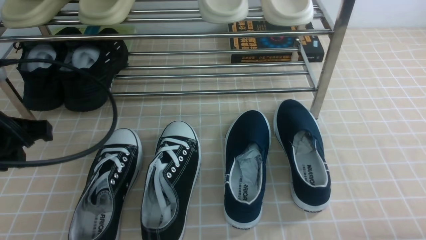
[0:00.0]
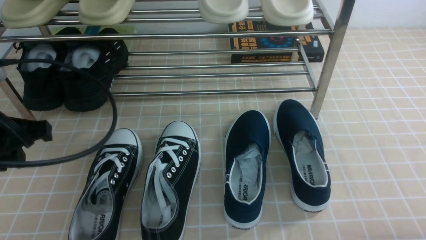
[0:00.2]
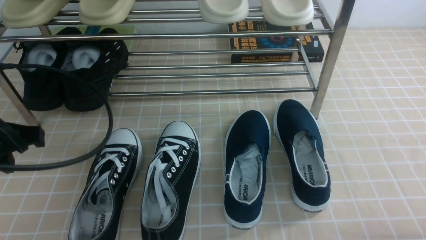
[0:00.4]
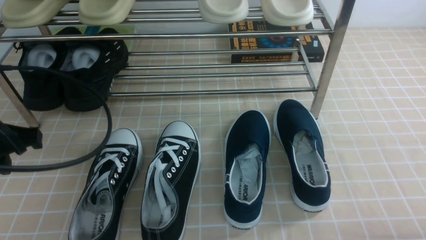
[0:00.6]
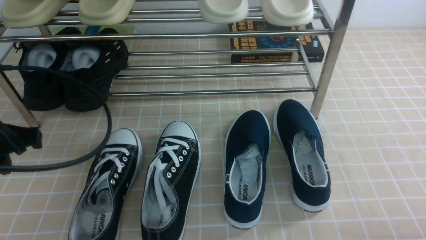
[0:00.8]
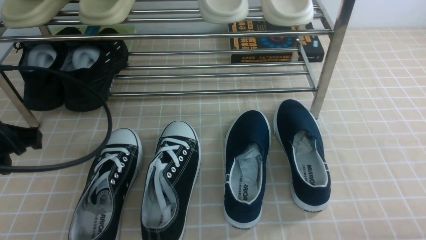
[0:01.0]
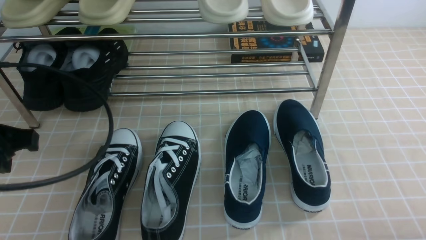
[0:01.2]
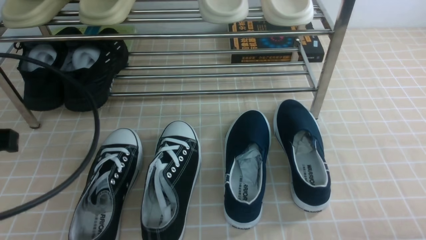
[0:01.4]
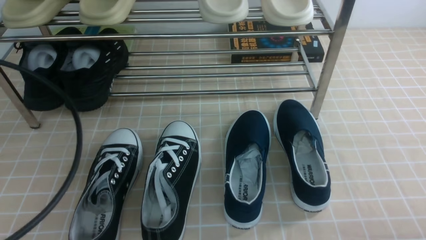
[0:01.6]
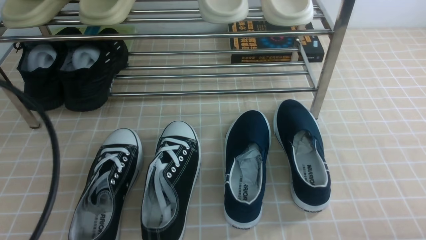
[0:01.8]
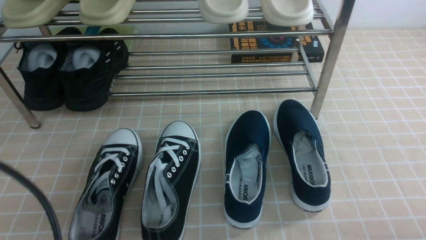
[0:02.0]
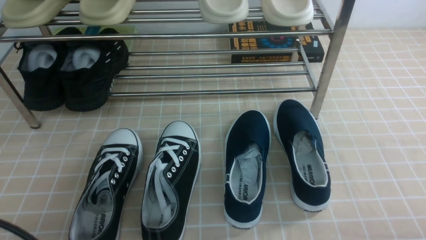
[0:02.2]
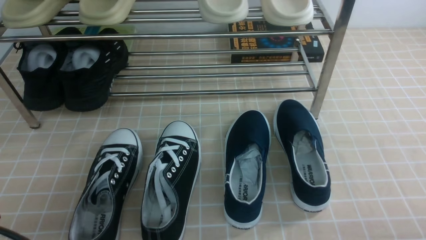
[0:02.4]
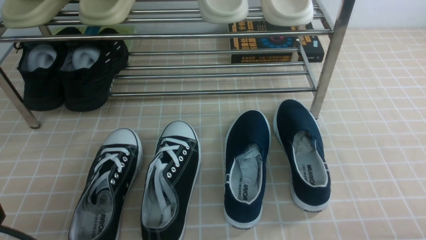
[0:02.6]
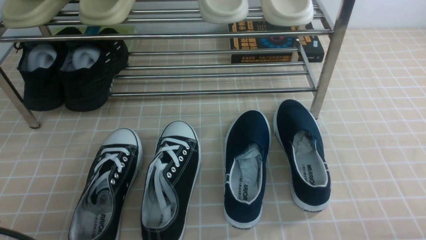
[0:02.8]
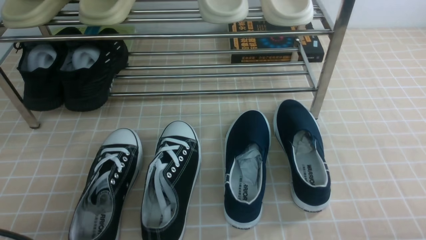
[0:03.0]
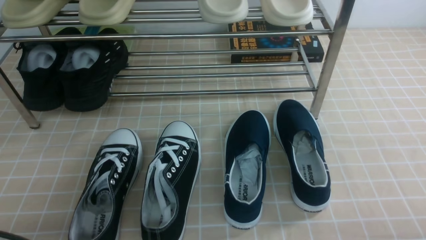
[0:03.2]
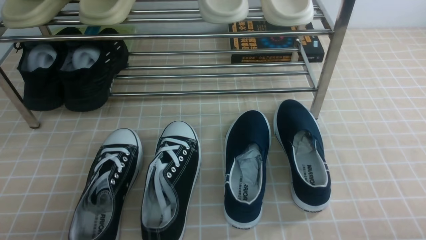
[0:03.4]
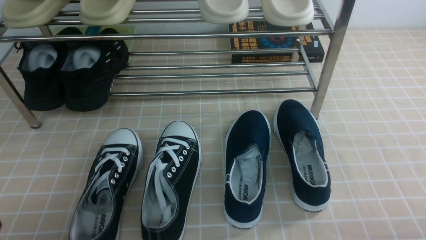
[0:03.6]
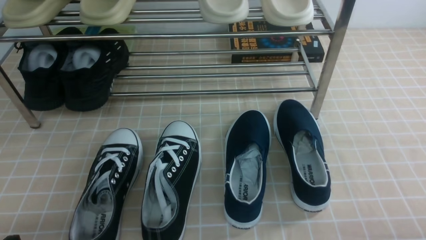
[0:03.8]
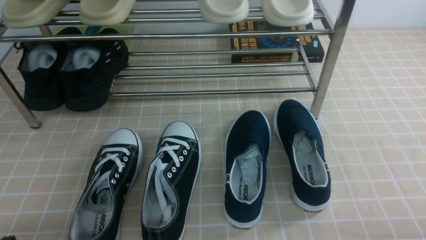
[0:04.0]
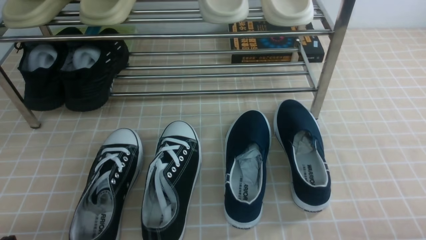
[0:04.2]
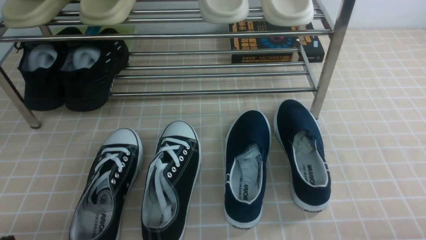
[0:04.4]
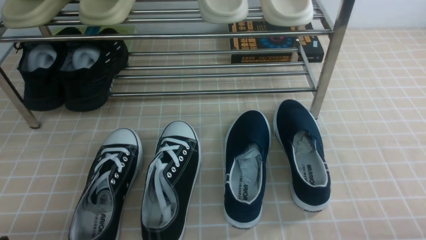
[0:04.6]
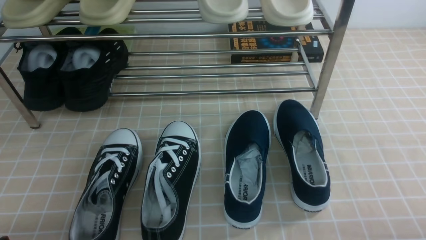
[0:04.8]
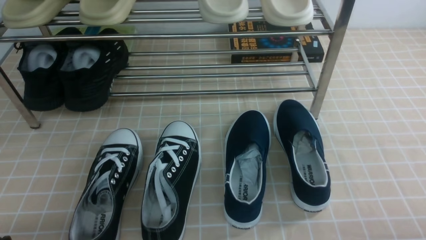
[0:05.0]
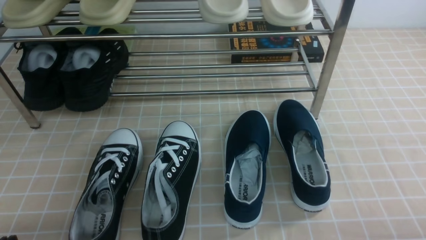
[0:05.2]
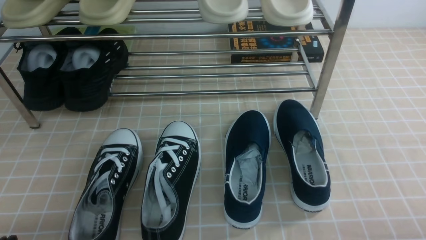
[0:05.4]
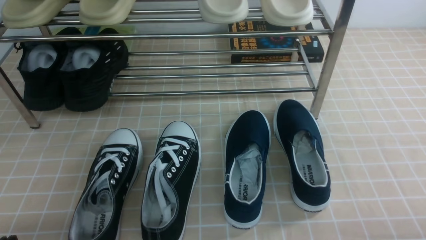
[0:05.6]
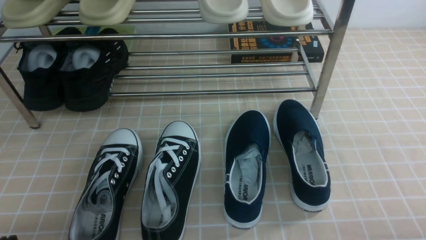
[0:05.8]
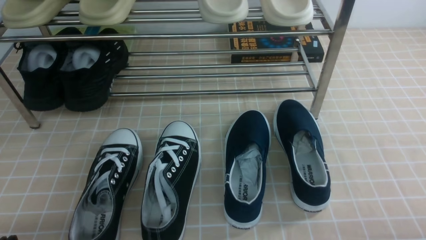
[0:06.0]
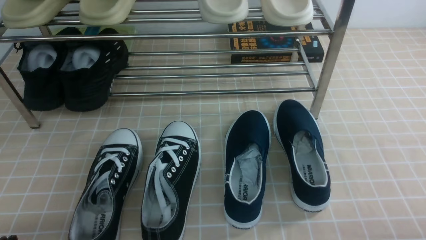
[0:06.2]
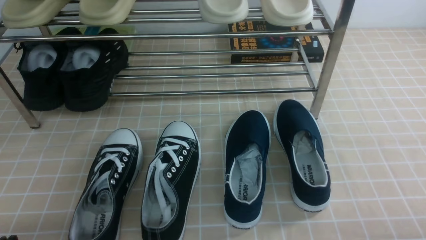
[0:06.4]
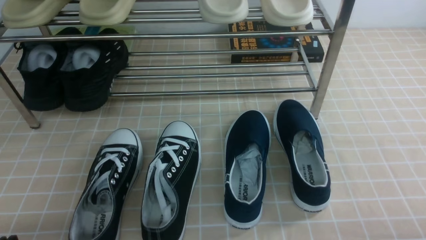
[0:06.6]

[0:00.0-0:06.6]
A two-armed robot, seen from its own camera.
0:00.0 to 0:01.6: The left gripper heads backward, covering some 10 cm.
0:01.6 to 0:03.2: The left gripper is displaced downward and backward by approximately 15 cm, and closes up.
0:05.0 to 0:06.6: Both grippers stay about where they are.

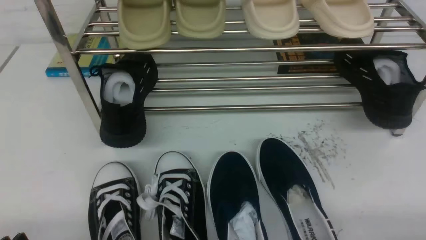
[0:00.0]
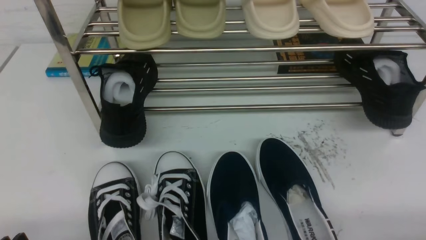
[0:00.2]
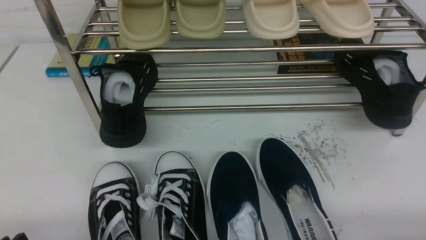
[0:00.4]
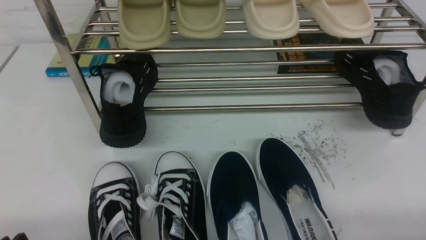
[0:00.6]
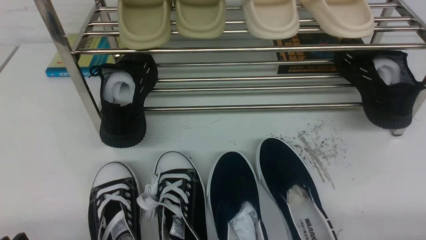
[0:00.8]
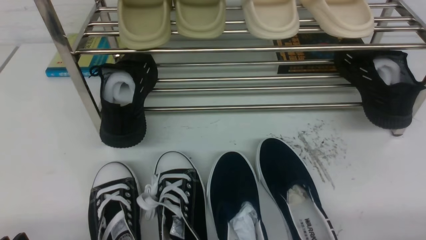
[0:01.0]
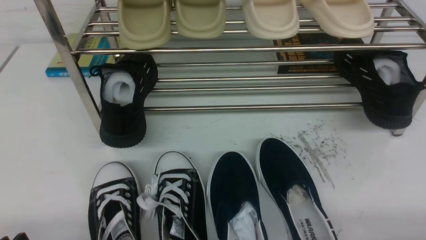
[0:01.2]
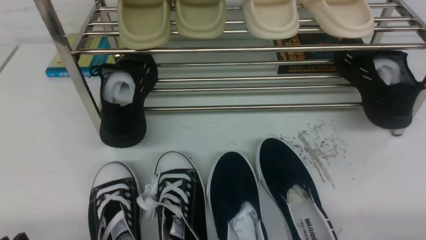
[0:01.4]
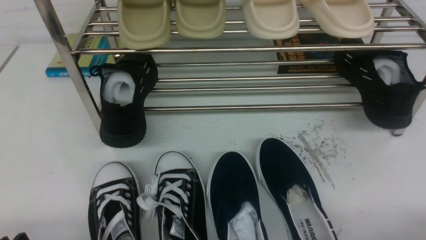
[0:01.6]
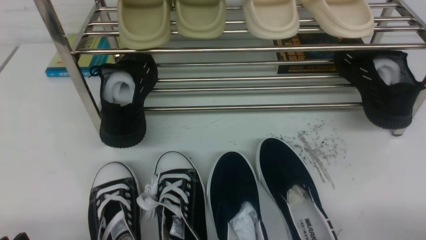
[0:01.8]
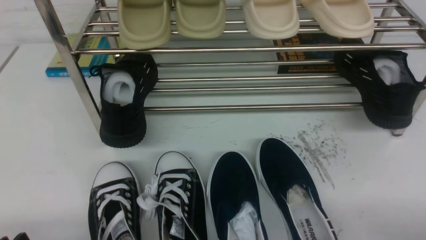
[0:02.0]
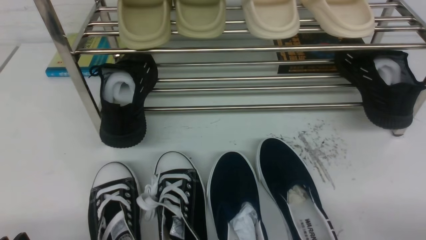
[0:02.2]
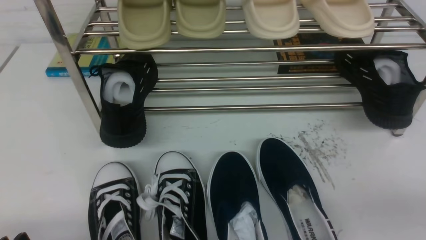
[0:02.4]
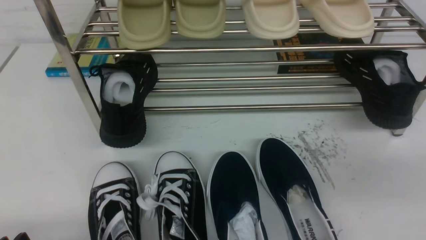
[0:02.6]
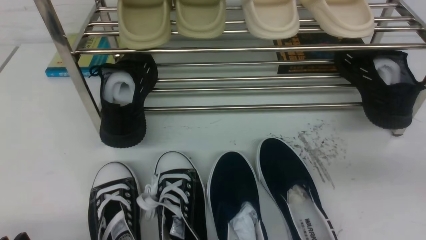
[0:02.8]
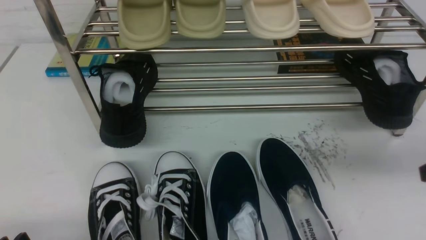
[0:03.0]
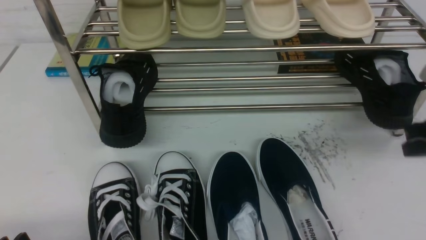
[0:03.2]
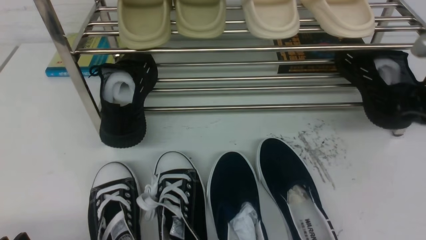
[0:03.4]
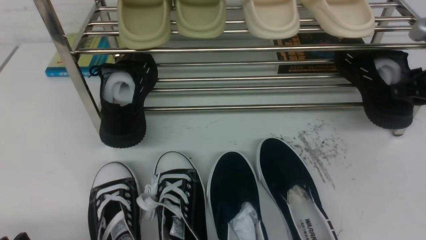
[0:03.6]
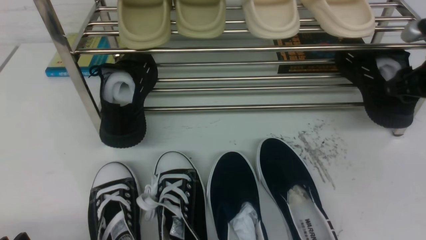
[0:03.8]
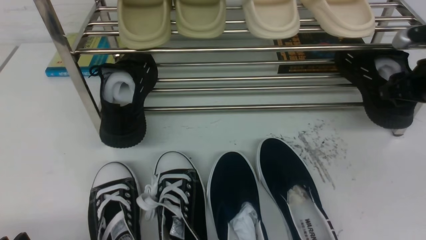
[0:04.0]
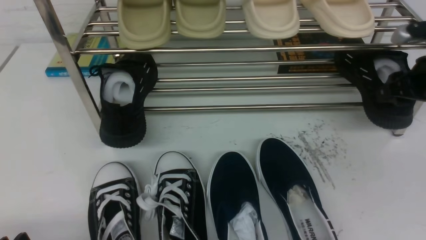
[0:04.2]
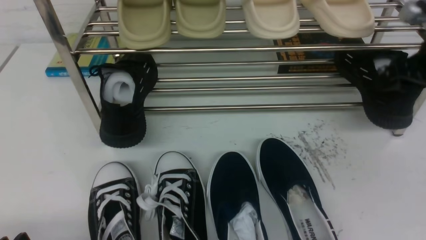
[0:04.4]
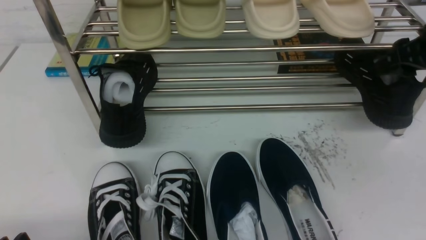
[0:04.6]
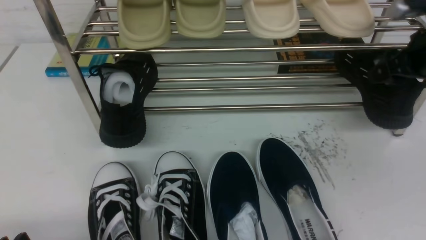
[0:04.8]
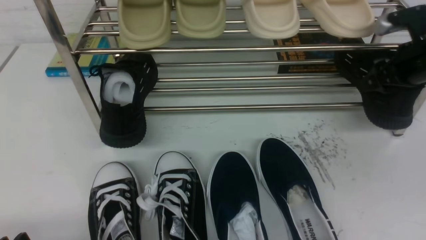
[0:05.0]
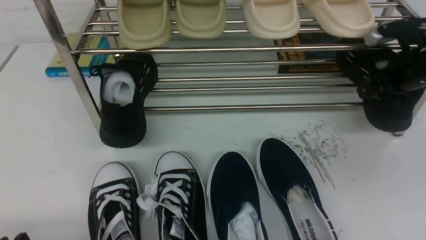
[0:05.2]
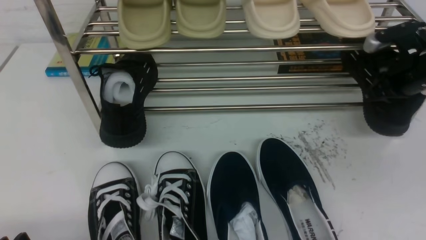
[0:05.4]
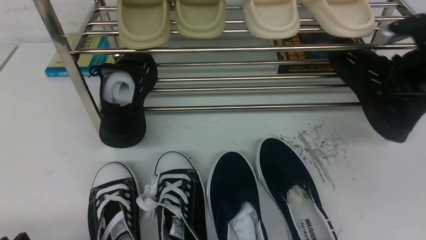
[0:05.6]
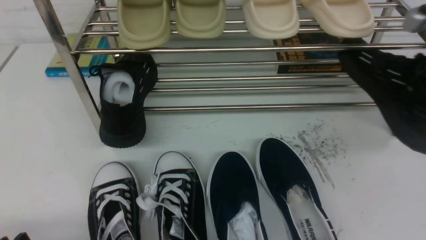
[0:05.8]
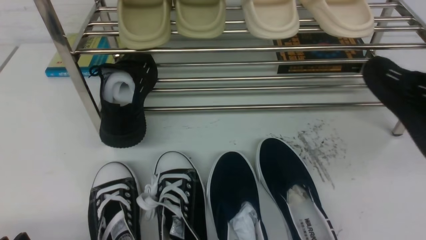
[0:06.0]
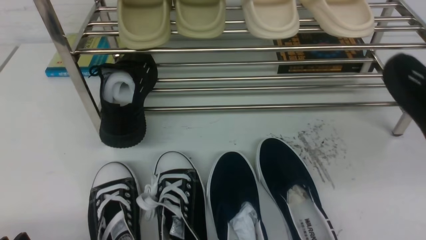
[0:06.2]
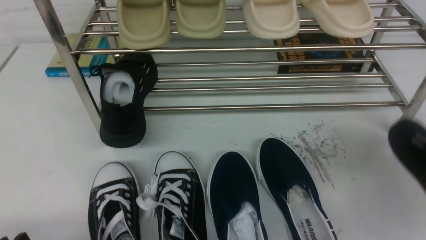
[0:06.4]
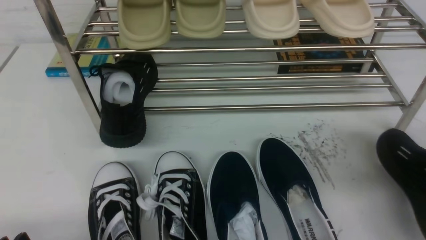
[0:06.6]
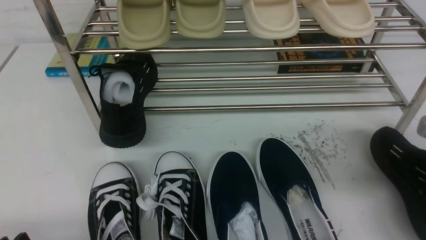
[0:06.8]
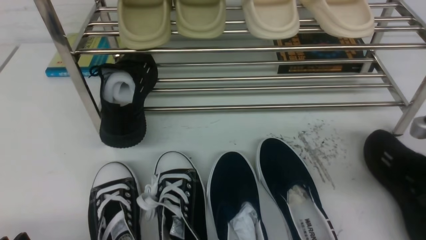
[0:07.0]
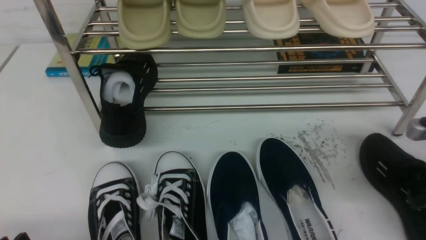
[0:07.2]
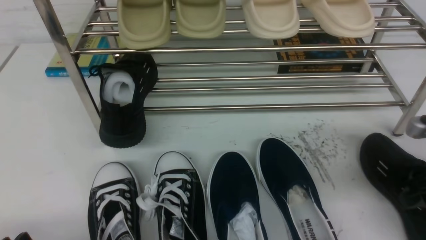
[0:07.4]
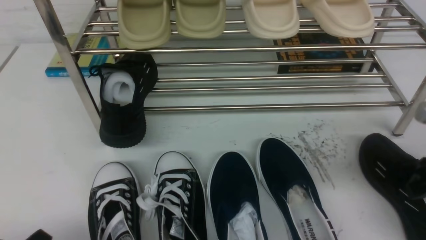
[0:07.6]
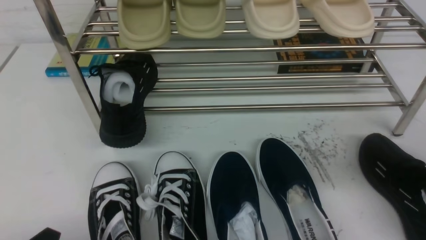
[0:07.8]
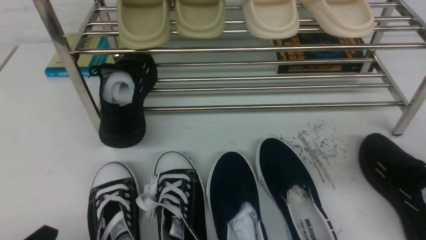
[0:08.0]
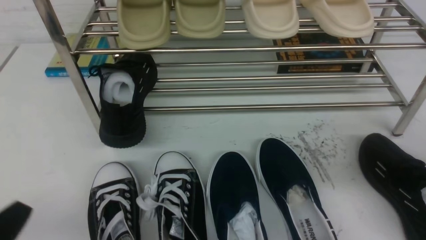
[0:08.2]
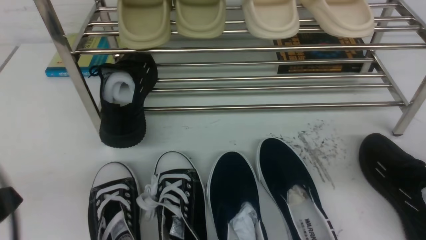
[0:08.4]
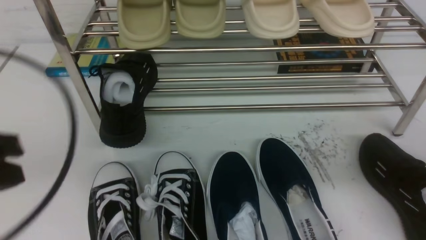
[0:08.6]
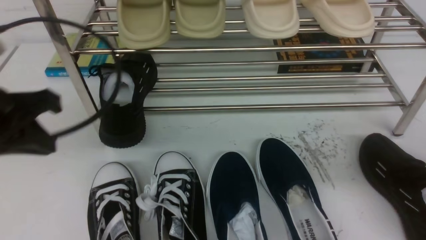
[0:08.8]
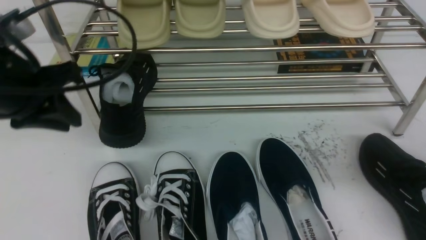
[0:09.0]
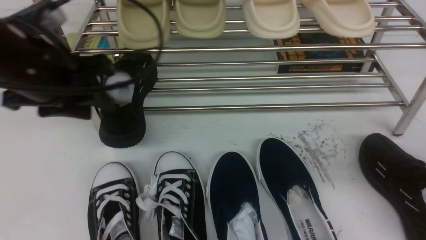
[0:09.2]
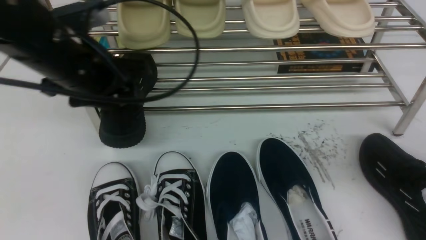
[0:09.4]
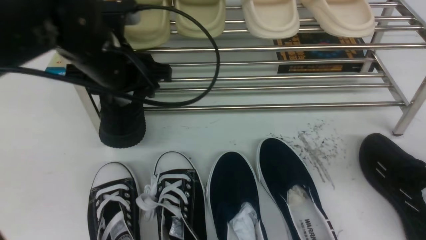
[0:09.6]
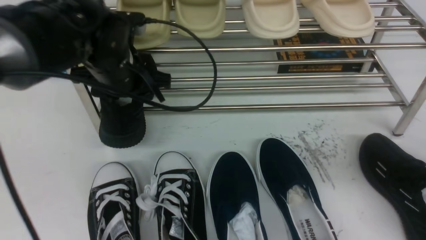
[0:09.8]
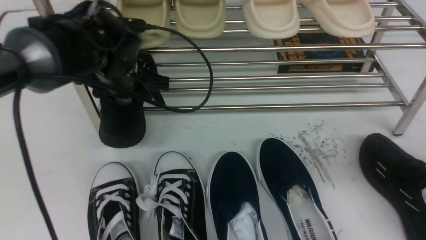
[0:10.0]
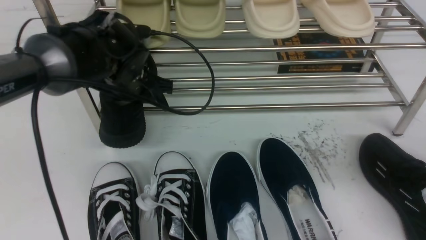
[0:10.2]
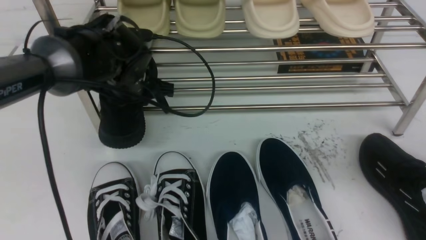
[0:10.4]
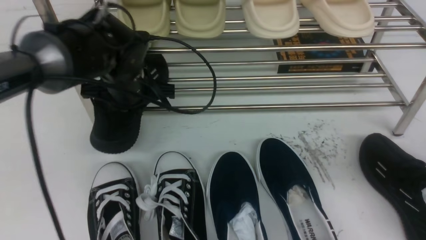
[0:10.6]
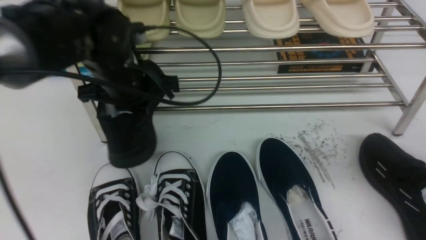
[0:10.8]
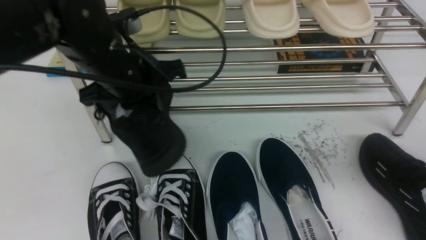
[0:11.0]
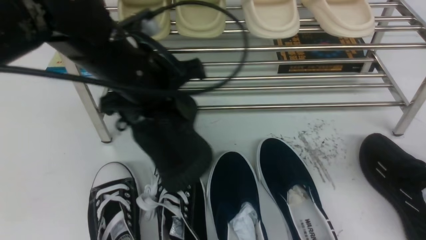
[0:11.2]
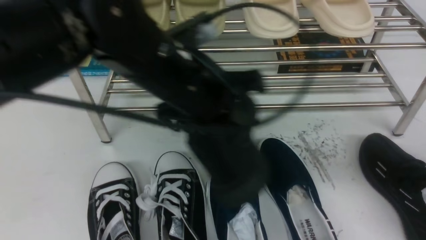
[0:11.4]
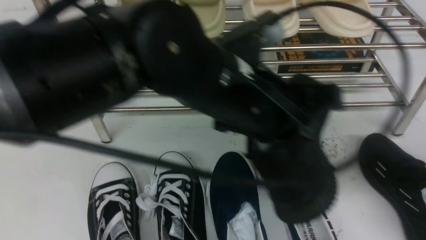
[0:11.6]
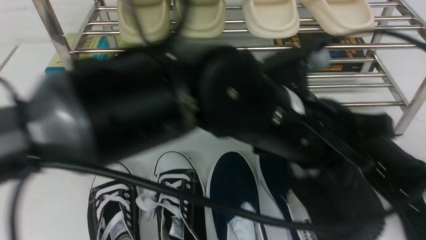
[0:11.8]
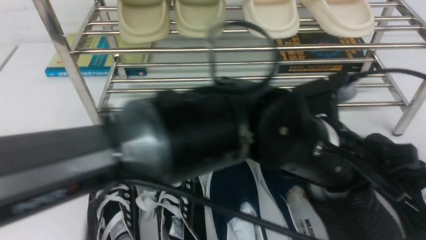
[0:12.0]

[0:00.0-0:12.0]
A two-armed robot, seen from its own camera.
Step, 0:00.0 to 0:05.8: use the right arm to clamp a shoe on the right side of the shoe rack.
Step, 0:06.0 to 0:07.6: use the right arm to take out the clamped shoe from the shoe rack and put it down.
Step, 0:07.8 to 0:10.8: use the left arm to clamp a shoe on the left side of the shoe rack.
0:01.6 to 0:03.0: The right gripper moves forward and upward, some 20 cm, and closes up.
0:03.0 to 0:04.4: The right gripper moves forward, about 15 cm, and opens.
0:04.4 to 0:06.0: The right gripper goes approximately 10 cm backward and upward, and closes up.
0:06.0 to 0:07.6: The right gripper heads downward, covering approximately 10 cm, and opens its fingers.
0:07.6 to 0:09.0: The left gripper is displaced forward and upward by approximately 25 cm, and closes and opens again.
0:09.0 to 0:10.4: The left gripper is displaced forward, to the right and downward by approximately 20 cm, and opens and closes again.
0:10.4 to 0:12.0: The left gripper goes about 30 cm to the right and backward.
